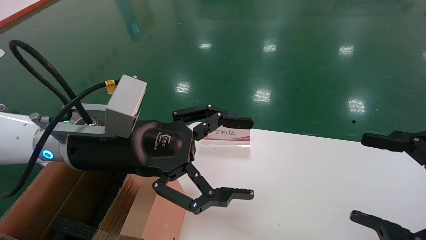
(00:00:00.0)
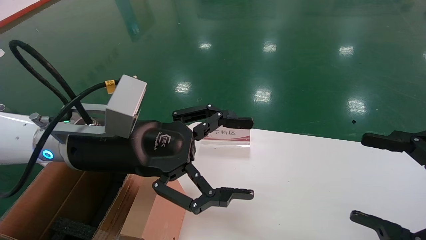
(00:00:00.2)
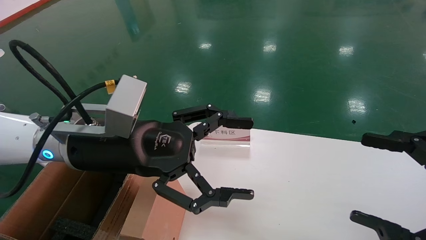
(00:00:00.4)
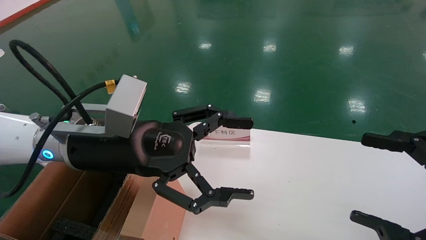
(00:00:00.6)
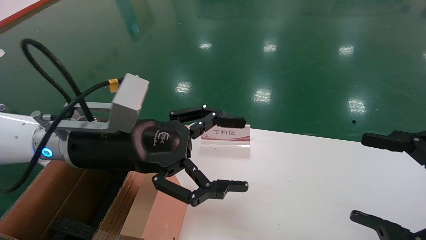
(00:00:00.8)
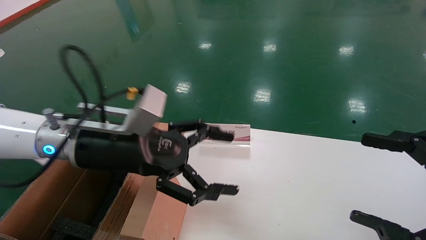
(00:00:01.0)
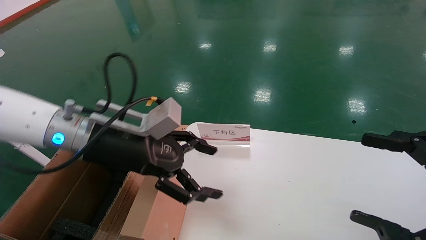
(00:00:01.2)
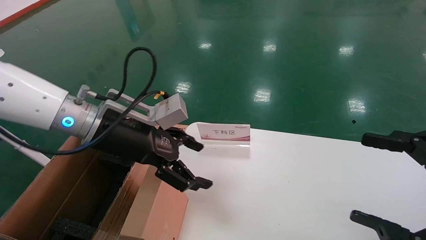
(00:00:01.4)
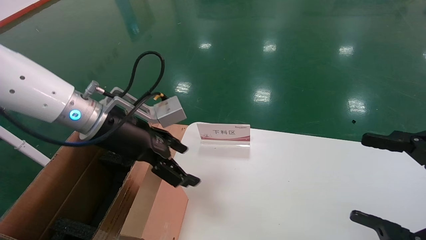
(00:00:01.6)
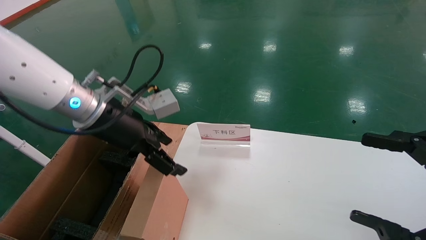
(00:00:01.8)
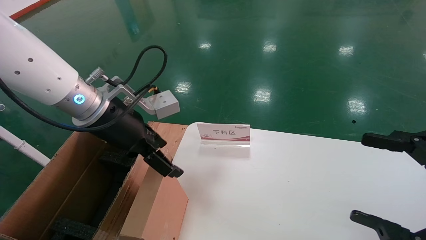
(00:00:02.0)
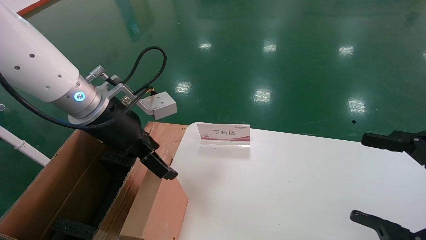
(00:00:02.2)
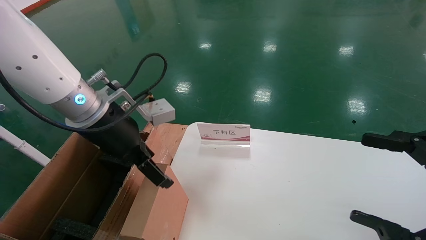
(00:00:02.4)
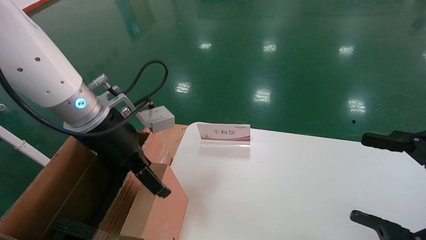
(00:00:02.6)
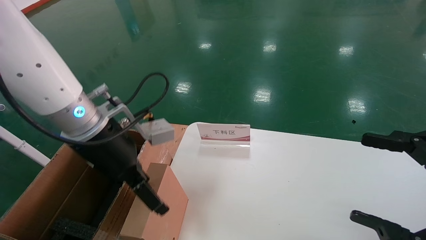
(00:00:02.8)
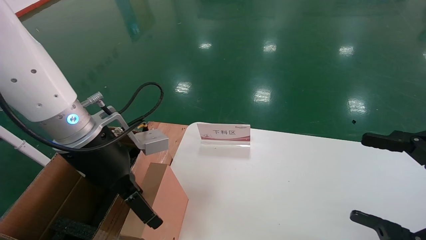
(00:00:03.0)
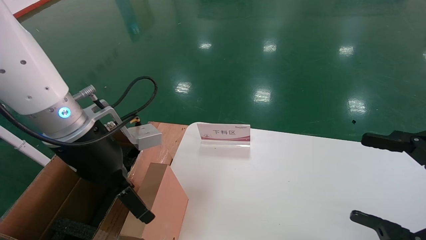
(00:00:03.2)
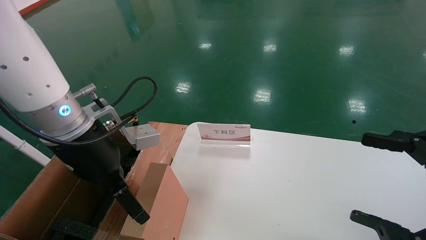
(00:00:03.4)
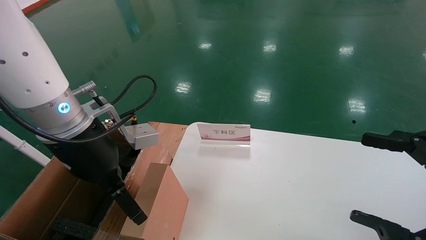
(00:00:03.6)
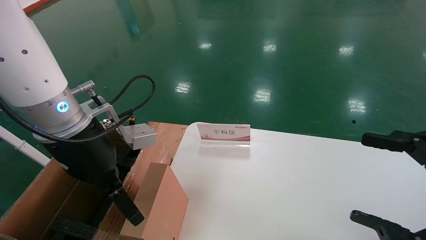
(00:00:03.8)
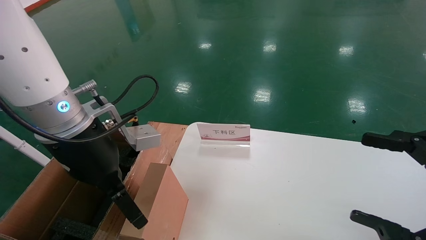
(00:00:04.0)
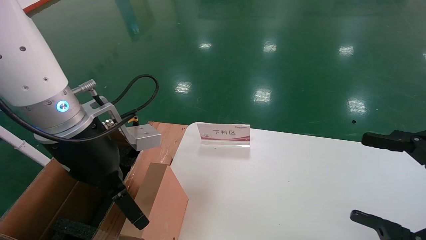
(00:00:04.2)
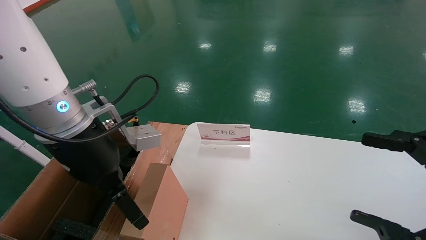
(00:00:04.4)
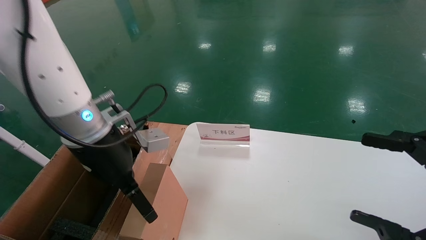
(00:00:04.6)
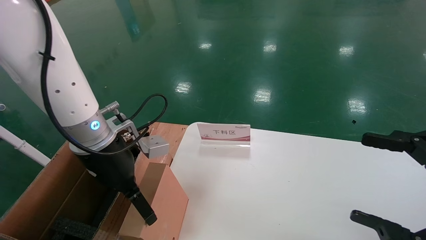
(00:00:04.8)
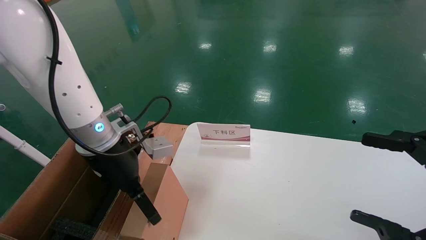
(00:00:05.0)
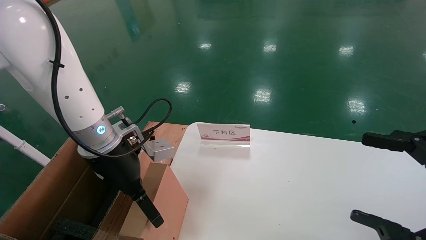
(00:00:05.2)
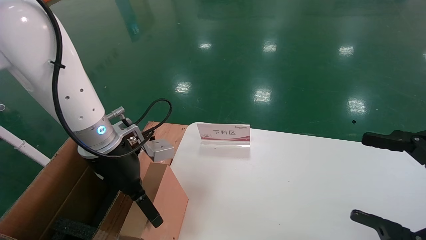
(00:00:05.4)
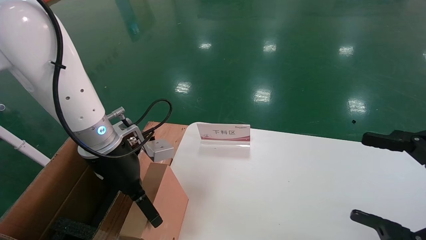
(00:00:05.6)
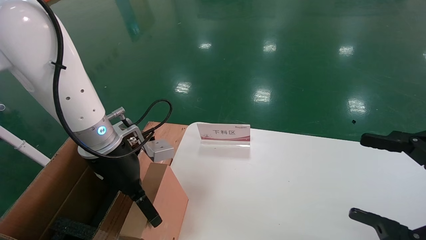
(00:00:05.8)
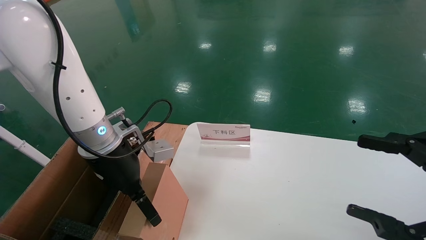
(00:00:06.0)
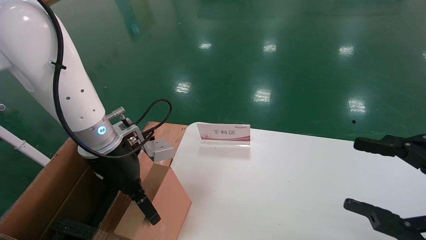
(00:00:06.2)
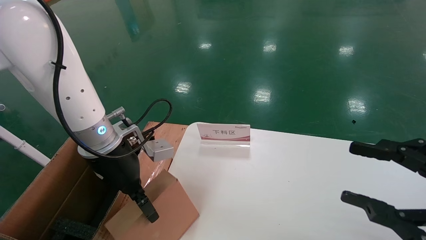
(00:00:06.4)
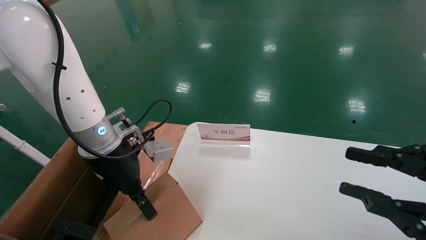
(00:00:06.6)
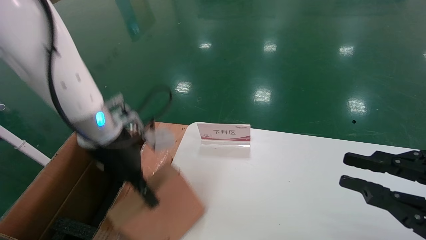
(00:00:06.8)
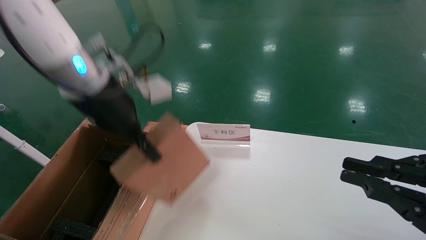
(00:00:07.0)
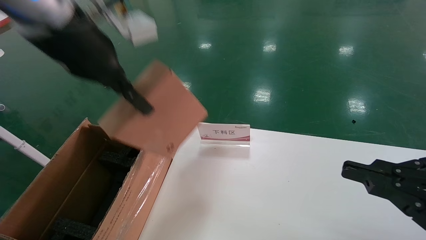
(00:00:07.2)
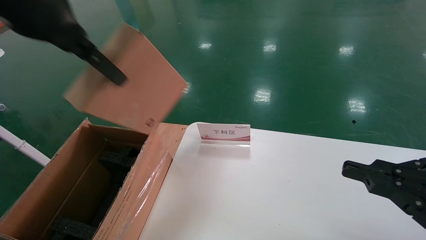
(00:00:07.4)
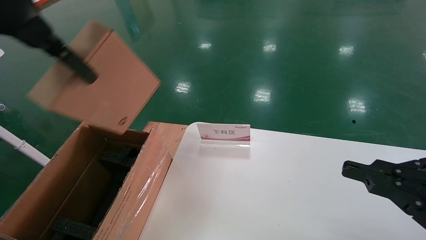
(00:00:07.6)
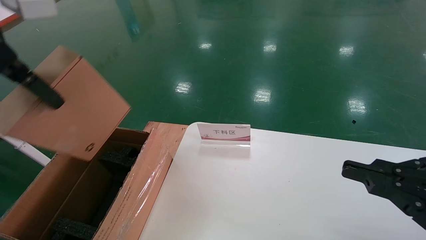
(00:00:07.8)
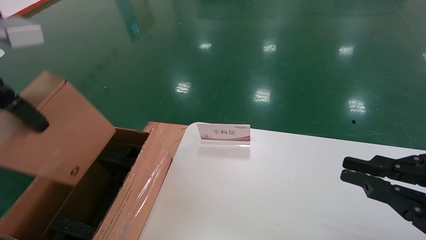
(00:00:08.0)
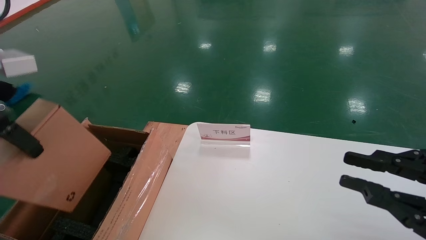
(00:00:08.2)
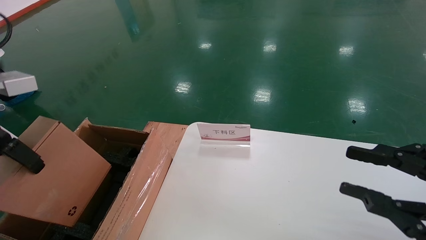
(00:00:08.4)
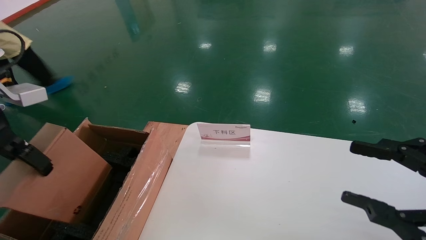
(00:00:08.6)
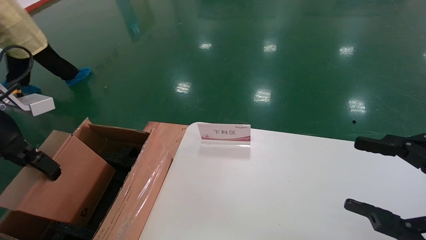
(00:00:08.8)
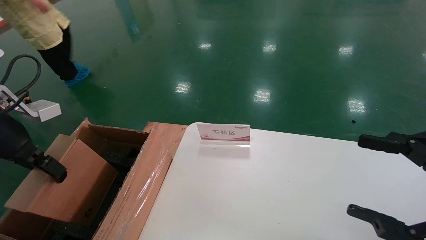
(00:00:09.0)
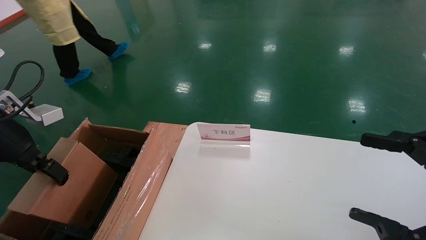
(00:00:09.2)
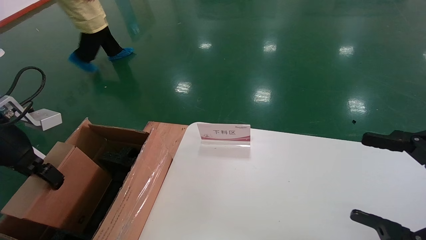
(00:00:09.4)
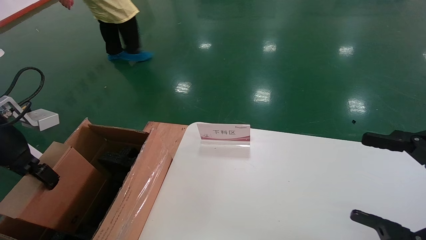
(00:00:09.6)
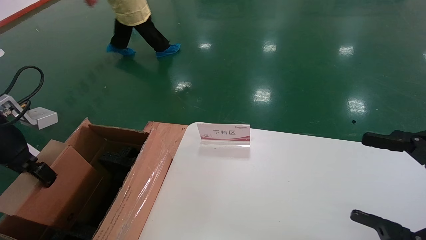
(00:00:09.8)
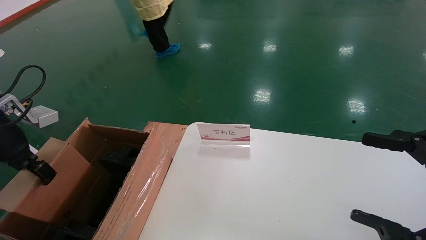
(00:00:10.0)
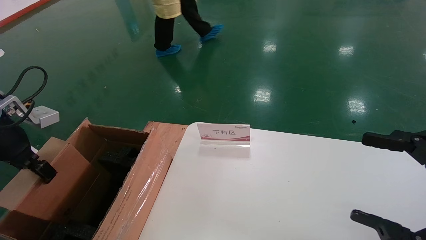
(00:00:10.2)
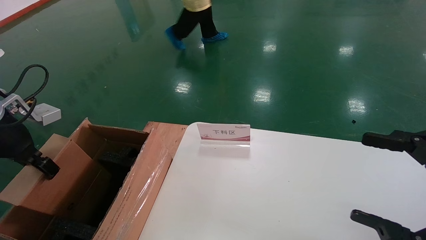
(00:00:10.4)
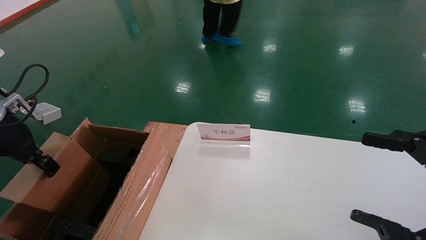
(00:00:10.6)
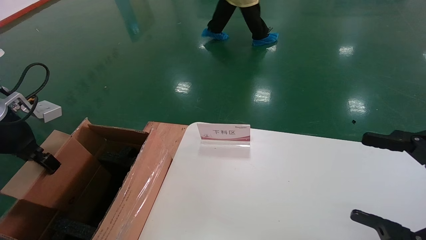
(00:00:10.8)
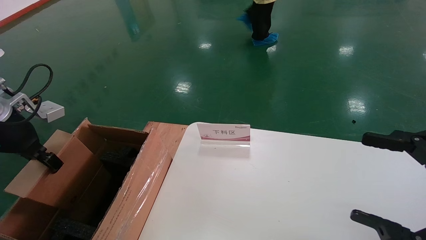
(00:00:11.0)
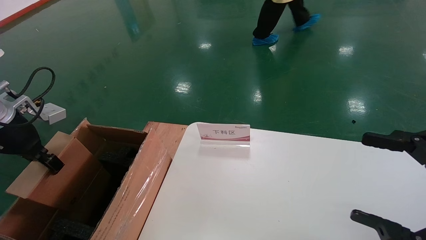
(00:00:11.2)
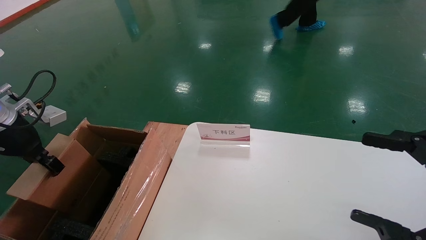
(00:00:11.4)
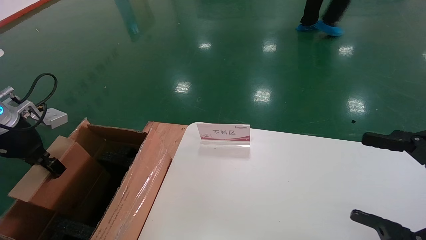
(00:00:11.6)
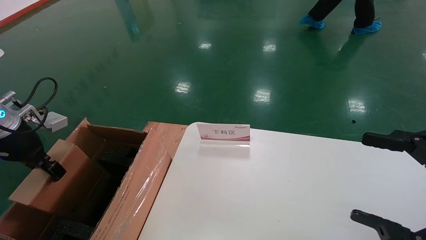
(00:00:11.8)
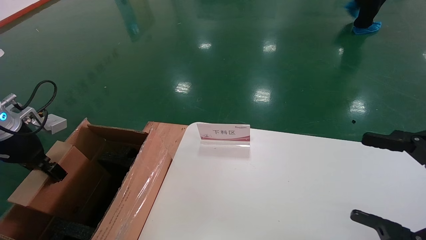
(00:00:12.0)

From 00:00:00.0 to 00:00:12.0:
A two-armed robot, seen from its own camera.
Task of the whole recording: pick up the small cardboard box and load it into the large cardboard box.
Step, from 00:00:01.4 to 00:00:06.6: Pick up the mouse and power cord box.
From 00:00:00.0 to 00:00:01.6: The left gripper shifts approximately 5 cm forward.
From 00:00:03.0 to 00:00:04.4: The grippers stay close to where they were, moving slightly.
From 00:00:04.4 to 00:00:06.0: The left gripper moves some 5 cm.
From 00:00:06.0 to 00:00:07.6: The right gripper closes its fingers, while the left gripper moves upward, some 25 cm, and closes.
From 00:00:07.6 to 00:00:09.0: The left gripper is displaced downward and to the left by approximately 20 cm. The right gripper opens its fingers.
From 00:00:09.0 to 00:00:10.4: The grippers make only small movements.
From 00:00:10.4 to 00:00:12.0: The left gripper moves some 5 cm.

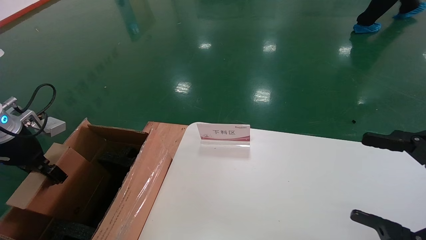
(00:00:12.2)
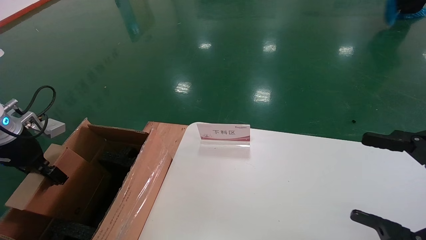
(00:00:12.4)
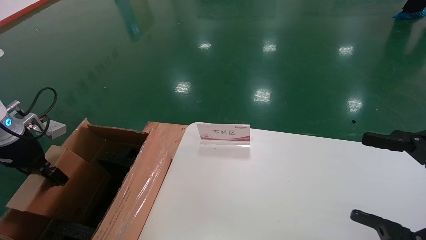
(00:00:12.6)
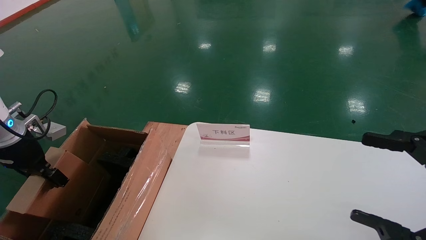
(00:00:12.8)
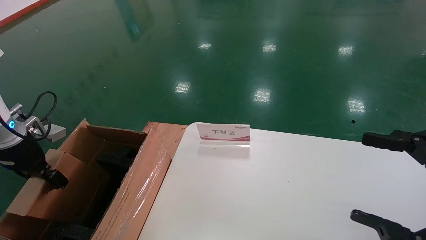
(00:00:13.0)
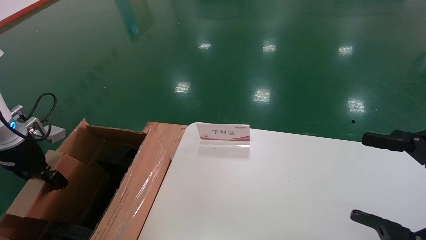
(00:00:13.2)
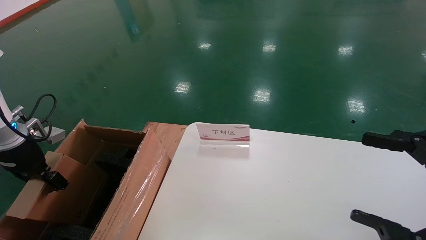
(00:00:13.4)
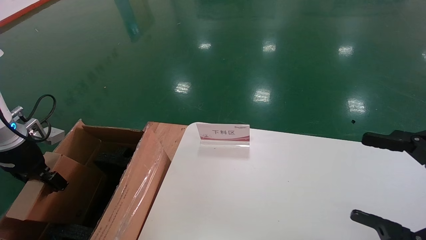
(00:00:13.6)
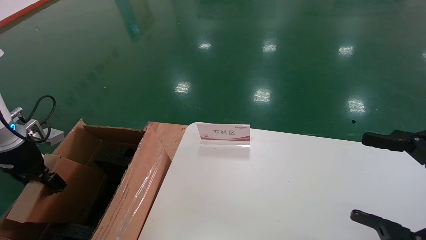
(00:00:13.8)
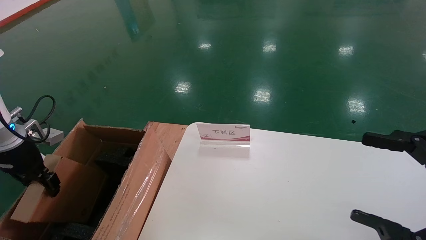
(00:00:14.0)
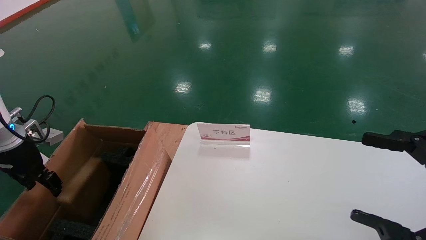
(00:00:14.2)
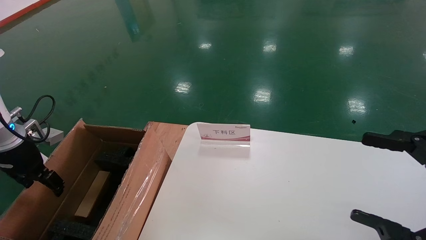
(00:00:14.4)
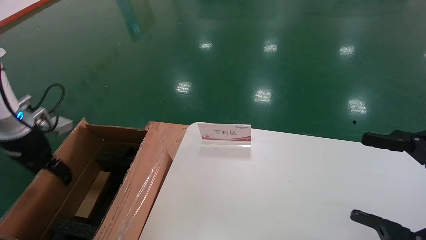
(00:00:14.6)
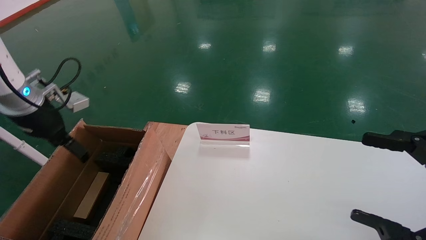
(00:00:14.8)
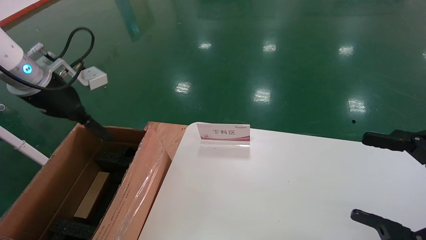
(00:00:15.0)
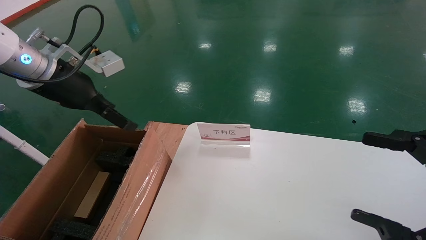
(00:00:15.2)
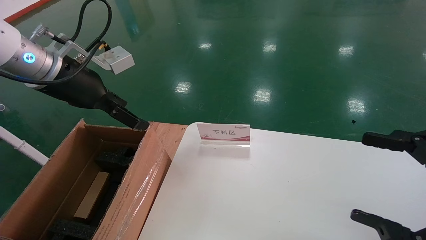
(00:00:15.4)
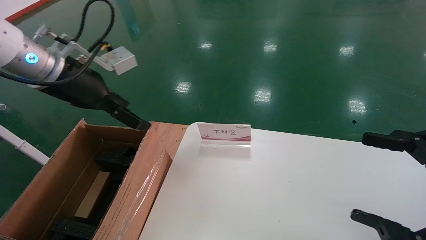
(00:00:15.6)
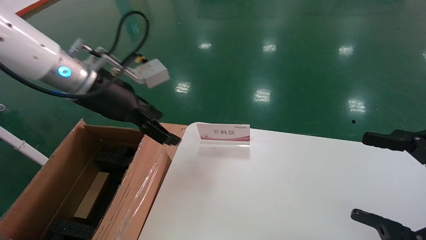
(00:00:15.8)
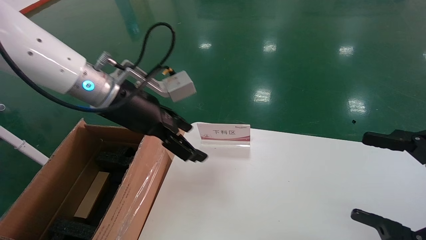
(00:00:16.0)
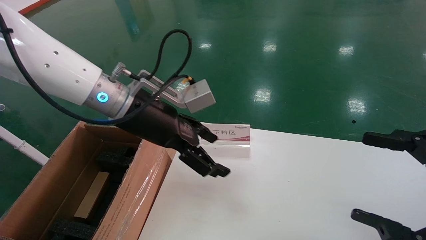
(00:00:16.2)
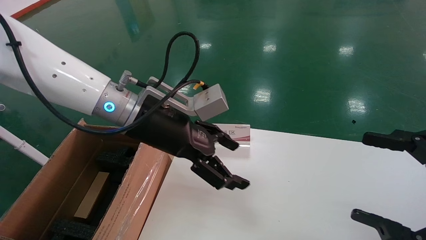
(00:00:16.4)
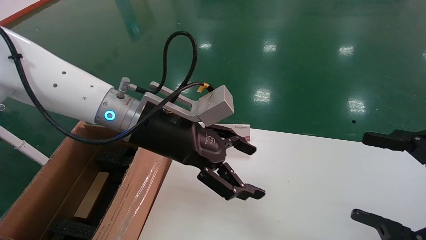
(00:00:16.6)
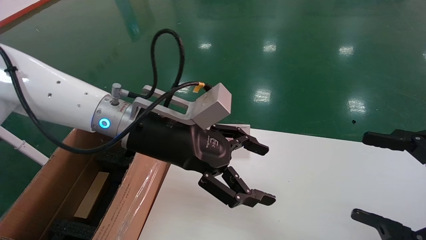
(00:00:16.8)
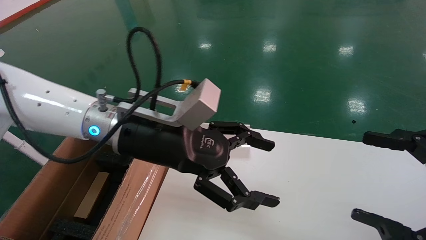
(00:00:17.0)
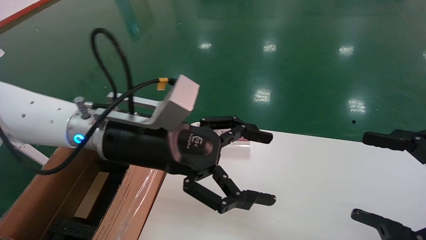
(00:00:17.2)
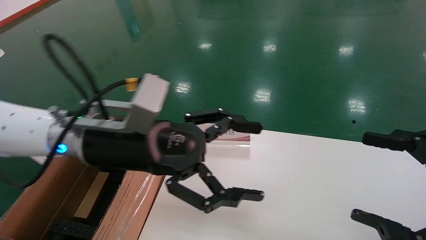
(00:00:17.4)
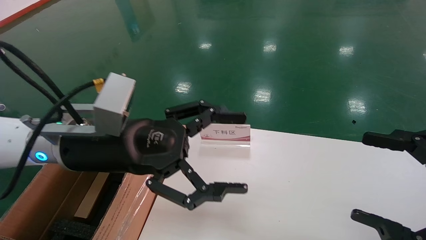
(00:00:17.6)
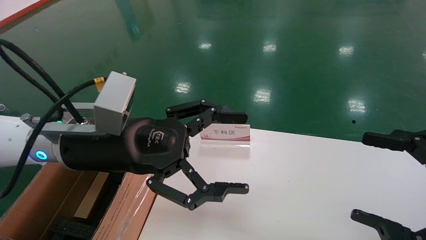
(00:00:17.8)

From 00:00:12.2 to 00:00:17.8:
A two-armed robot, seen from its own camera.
Task of the whole recording: pick up the small cardboard box and load it into the large cardboard box.
Step, from 00:00:12.2 to 00:00:14.2: Place the mouse and power cord box into the case.
From 00:00:12.2 to 00:00:13.6: There are only small adjustments of the grippers.
From 00:00:13.6 to 00:00:15.0: The left gripper travels upward and to the right by about 15 cm, and opens its fingers.
From 00:00:15.0 to 00:00:16.4: The left gripper shifts roughly 20 cm to the right.
From 00:00:16.4 to 00:00:17.8: The left gripper moves backward, some 5 cm.
